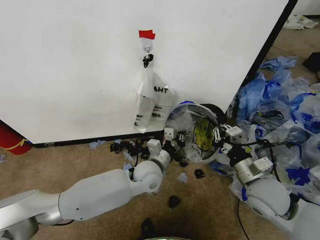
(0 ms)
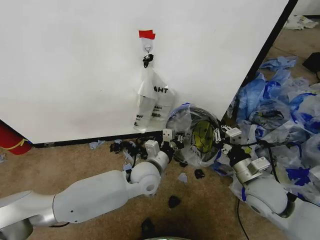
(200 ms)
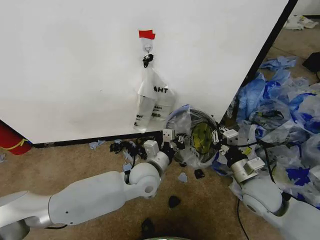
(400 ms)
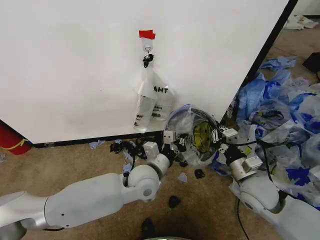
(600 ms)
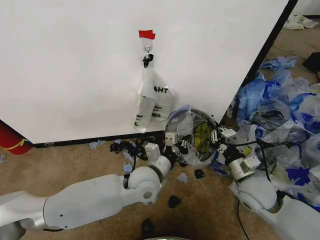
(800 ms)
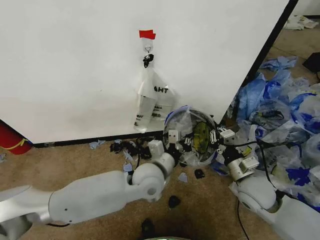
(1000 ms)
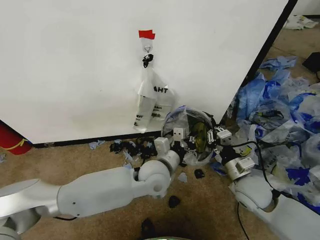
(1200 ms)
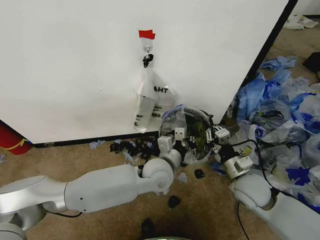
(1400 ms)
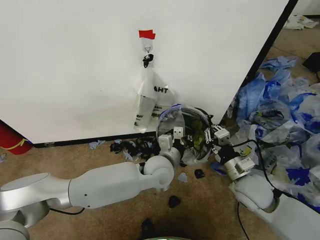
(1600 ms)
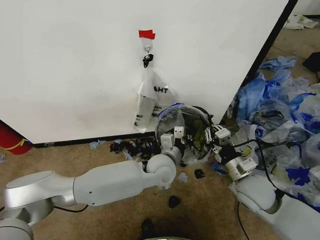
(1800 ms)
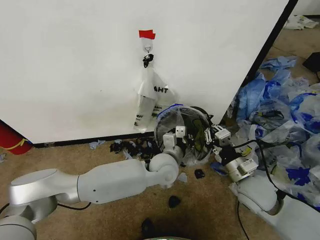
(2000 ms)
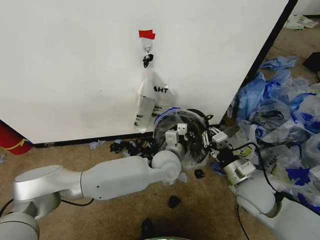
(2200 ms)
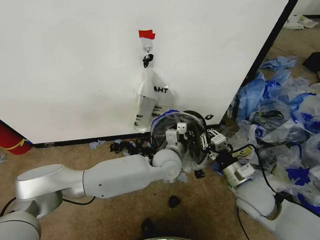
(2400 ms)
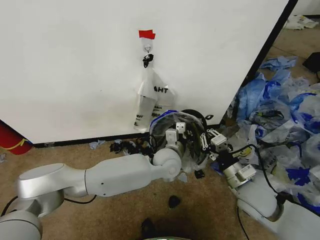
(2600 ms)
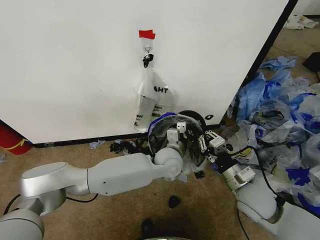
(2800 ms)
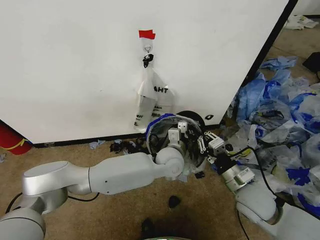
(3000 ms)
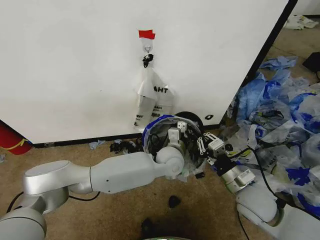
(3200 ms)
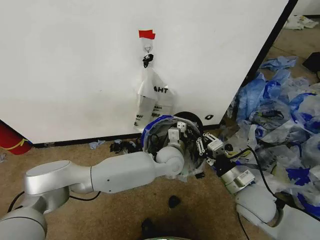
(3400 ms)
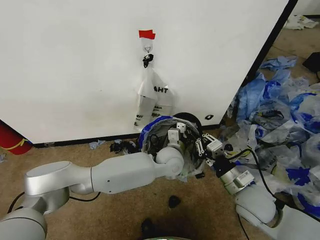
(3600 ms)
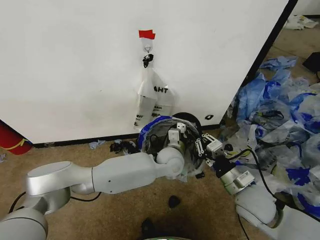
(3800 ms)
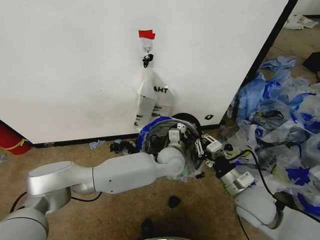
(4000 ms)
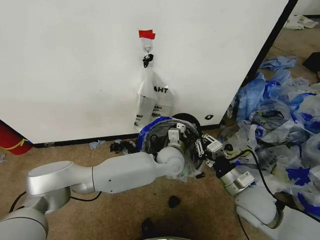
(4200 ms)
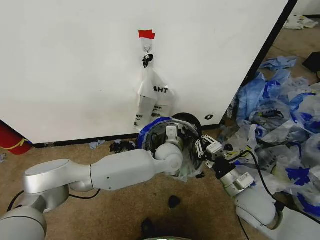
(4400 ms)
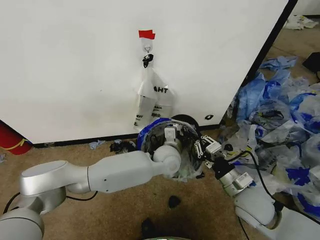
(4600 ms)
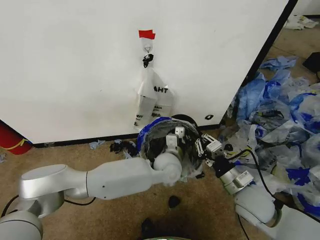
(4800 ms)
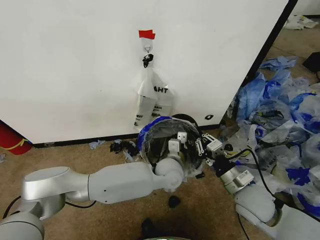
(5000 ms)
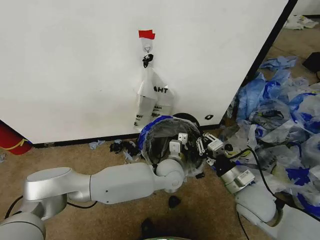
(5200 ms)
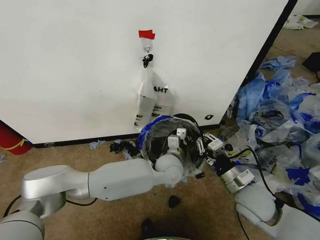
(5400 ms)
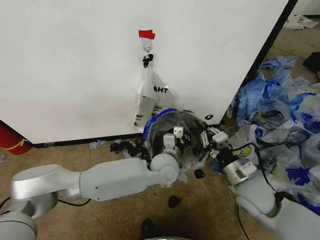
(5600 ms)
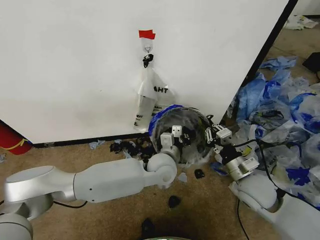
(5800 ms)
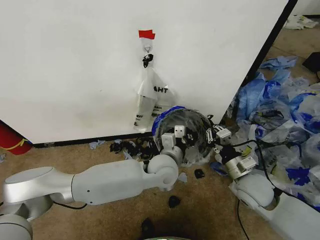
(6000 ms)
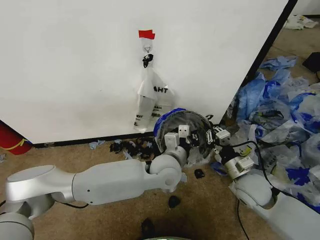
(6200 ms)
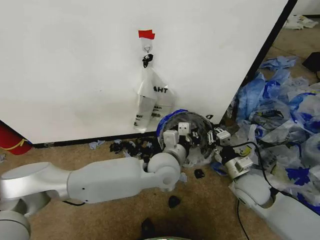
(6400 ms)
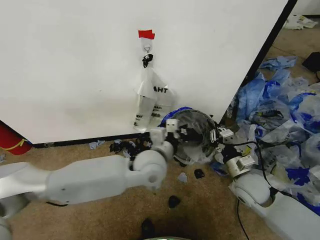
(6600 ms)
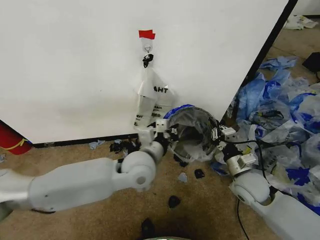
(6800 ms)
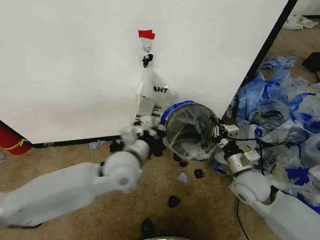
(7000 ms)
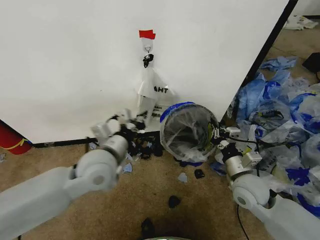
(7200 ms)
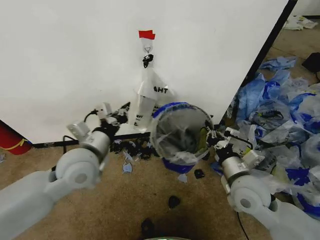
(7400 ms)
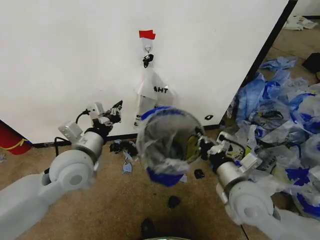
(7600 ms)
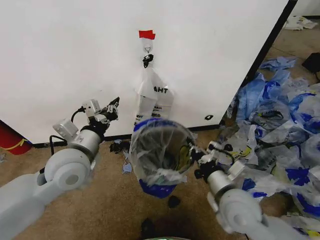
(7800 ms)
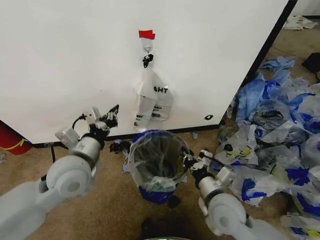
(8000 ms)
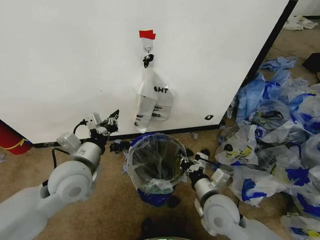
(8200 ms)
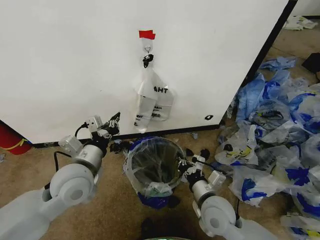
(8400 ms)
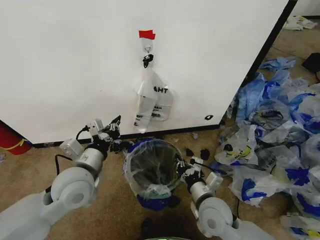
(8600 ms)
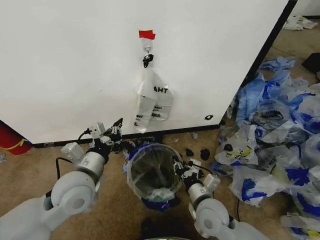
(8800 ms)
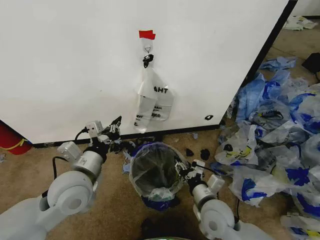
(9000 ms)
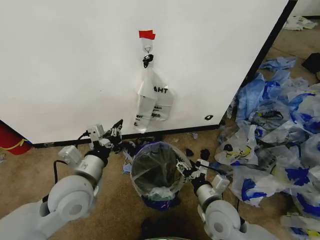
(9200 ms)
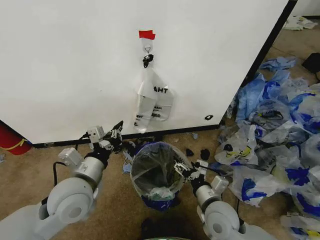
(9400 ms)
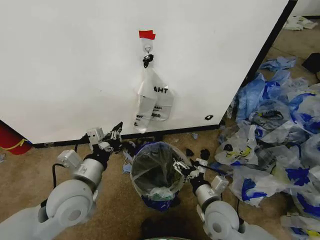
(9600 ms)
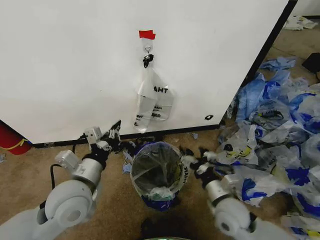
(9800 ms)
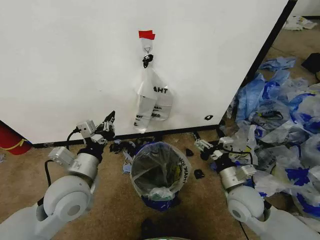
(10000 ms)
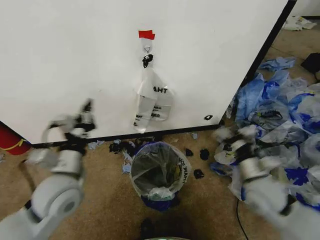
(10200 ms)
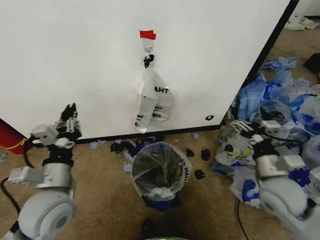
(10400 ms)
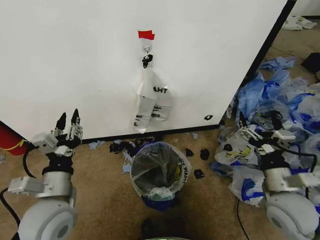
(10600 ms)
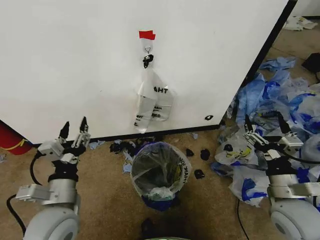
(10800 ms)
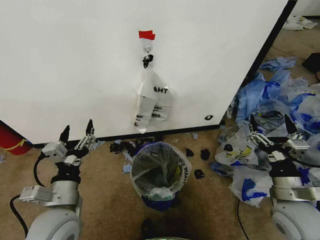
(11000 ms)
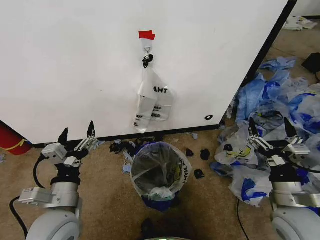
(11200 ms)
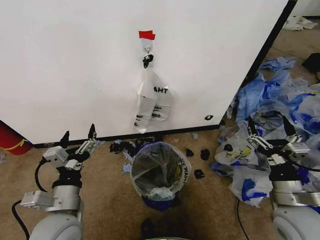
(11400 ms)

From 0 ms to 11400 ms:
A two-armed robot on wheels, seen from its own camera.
Task of the whole recording: Pick up the garbage bag from the wall and place it over the trash bin.
From 0 ms to 1400 ms: The left gripper moves roughly 5 cm. The right gripper moves roughly 5 cm.
From 1400 ms to 2800 ms: The left gripper moves forward, about 5 cm.
From 2800 ms to 5600 ms: There are only small adjustments of the grippers.
From 5600 ms to 7200 ms: The left gripper travels to the left and upward by approximately 20 cm.
From 7200 ms to 8600 ms: The right gripper is displaced to the left and backward by approximately 10 cm, while the left gripper goes about 5 cm to the left.
From 8600 ms to 10000 ms: The right gripper goes roughly 10 cm to the right, and opens up.
From 10000 ms to 11400 ms: The right gripper shifts approximately 10 cm to the right, backward and upward; the left gripper is displaced backward by approximately 5 cm, and opens up.

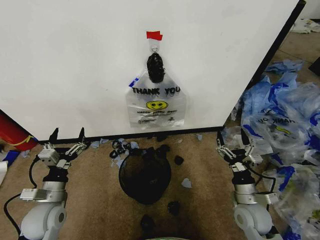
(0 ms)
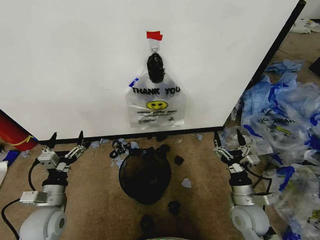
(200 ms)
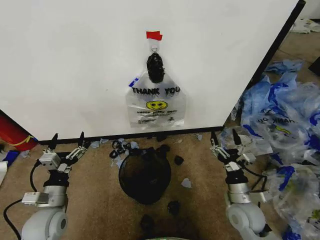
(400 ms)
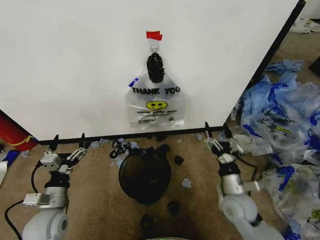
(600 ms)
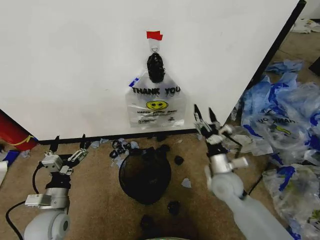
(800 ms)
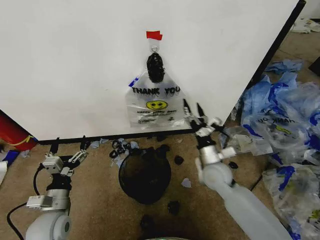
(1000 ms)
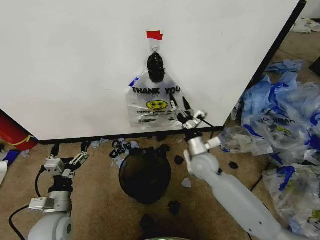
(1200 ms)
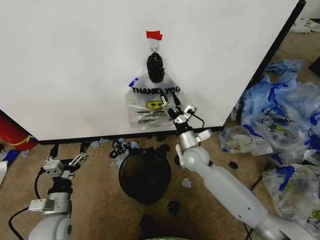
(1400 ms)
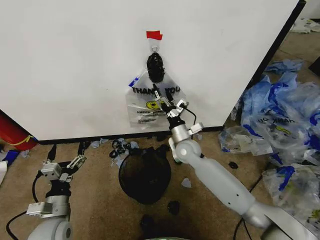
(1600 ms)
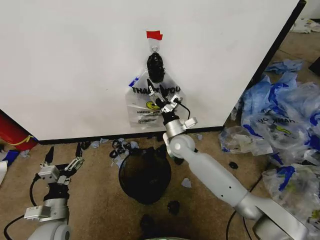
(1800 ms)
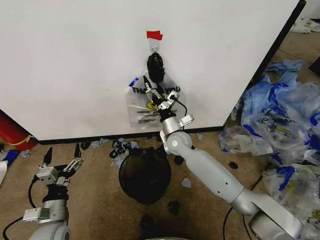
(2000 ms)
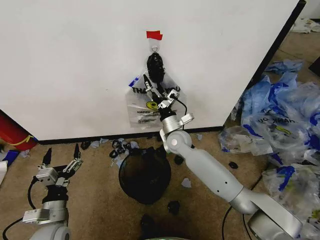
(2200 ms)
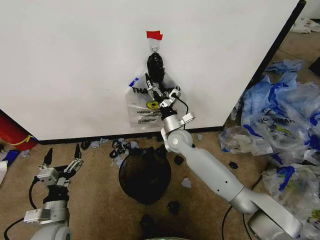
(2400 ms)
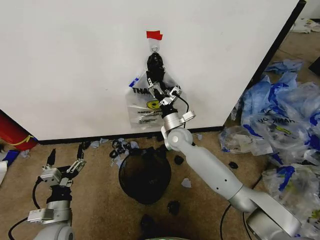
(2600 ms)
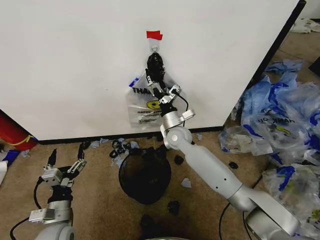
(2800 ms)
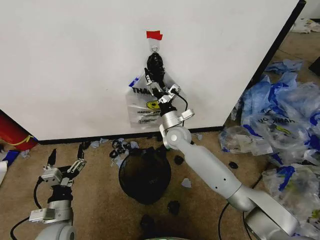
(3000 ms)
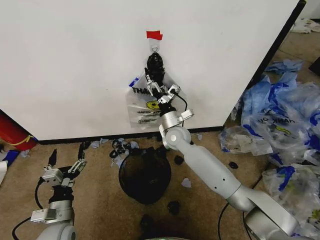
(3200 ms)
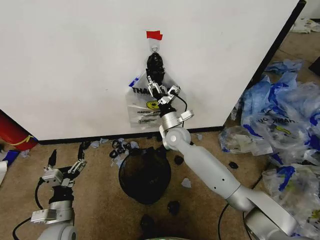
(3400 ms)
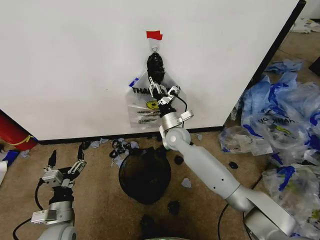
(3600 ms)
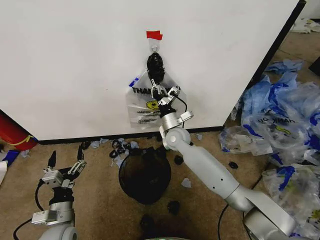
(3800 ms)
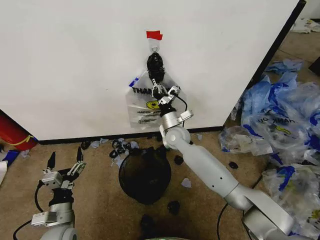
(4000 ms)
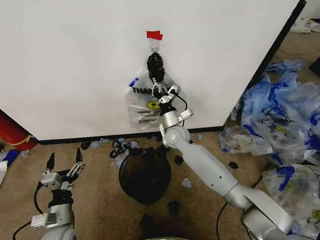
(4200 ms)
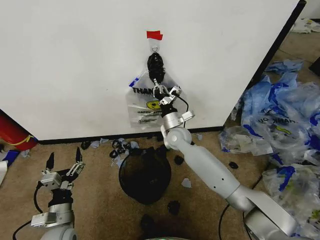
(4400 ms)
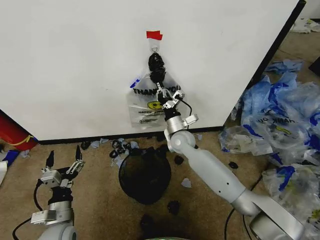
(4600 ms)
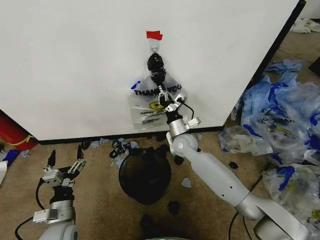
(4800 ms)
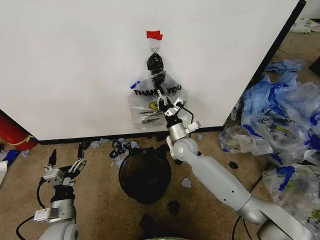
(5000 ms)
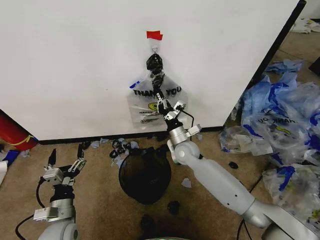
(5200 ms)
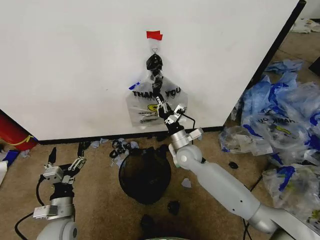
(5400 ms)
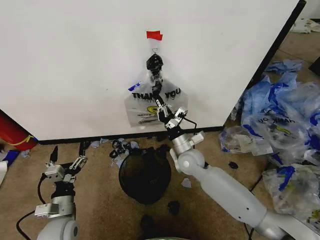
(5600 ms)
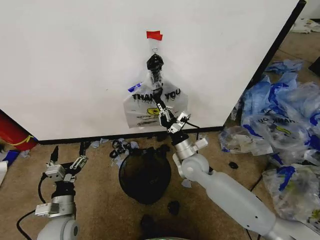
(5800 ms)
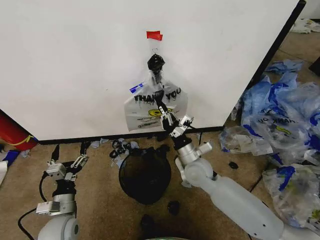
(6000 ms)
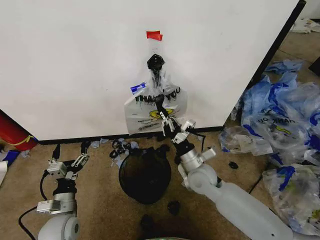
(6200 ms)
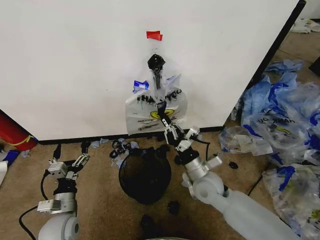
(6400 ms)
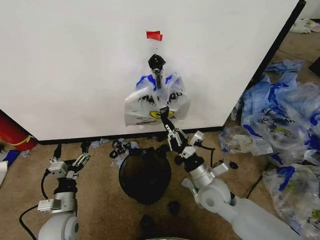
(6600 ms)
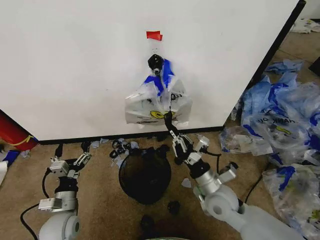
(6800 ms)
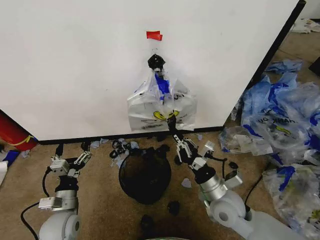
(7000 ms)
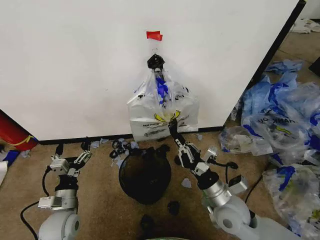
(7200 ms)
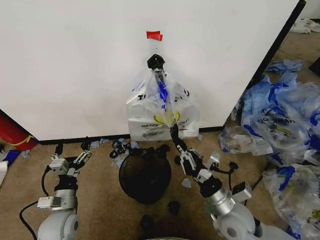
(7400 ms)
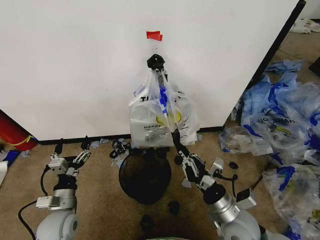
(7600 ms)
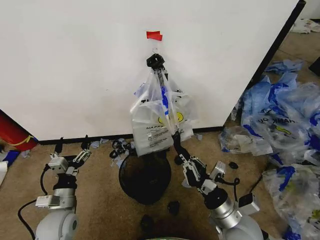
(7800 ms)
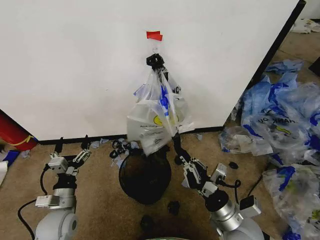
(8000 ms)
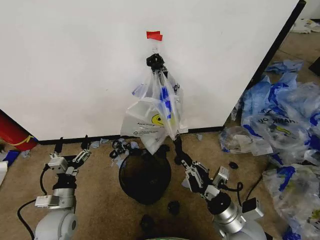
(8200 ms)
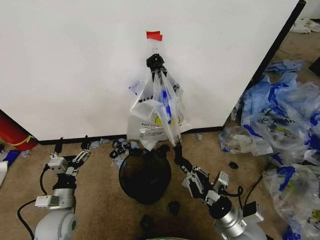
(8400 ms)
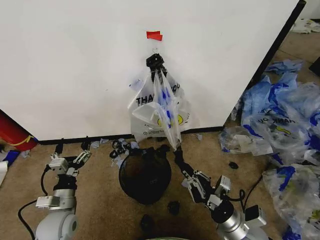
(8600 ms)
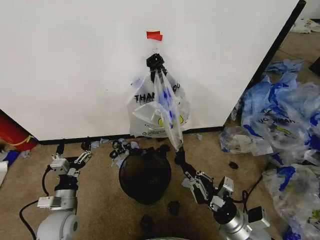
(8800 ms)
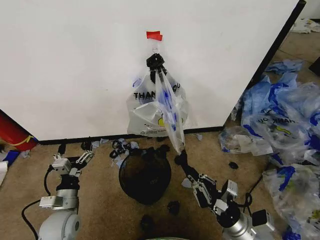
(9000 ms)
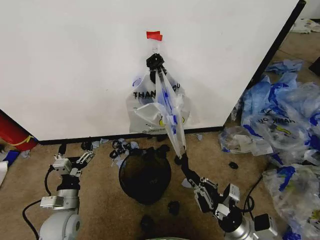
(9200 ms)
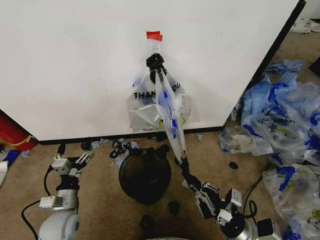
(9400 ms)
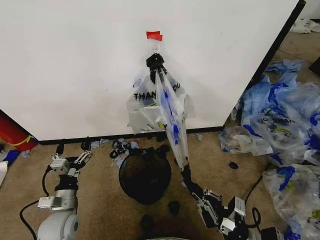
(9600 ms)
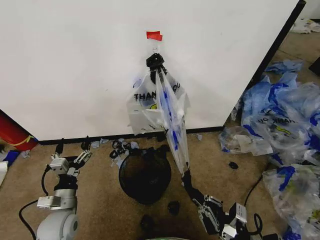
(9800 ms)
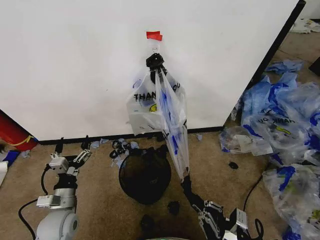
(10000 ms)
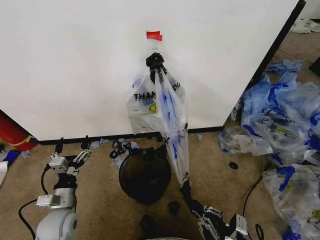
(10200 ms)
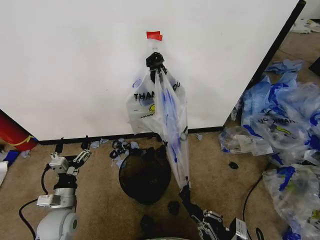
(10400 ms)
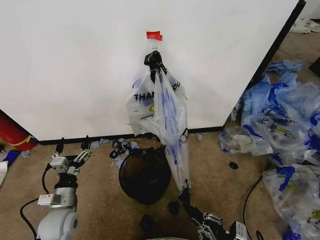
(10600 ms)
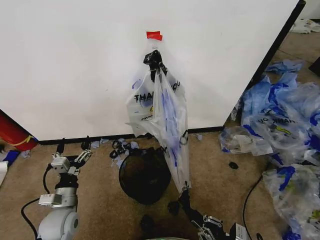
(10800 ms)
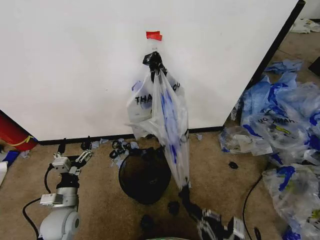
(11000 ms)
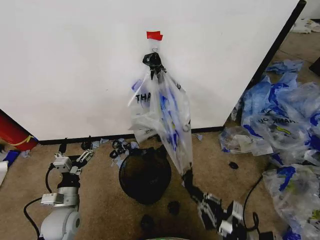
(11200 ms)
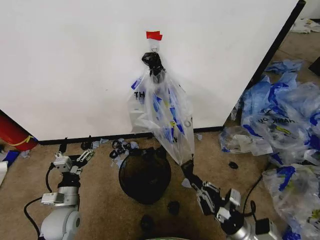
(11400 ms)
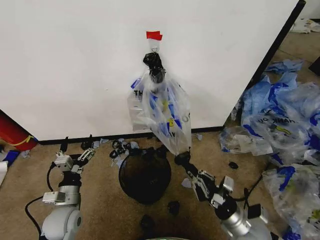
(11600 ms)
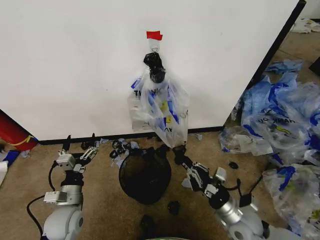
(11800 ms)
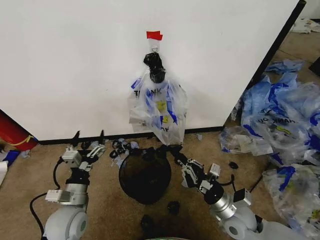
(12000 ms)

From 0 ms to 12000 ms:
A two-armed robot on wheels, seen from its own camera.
Task of the whole recording: Pick up the garbage bag from the wall and place it over the trash bin.
From 1600 ms to 3000 ms: The right gripper changes place by about 5 cm.
From 3000 ms to 4400 ms: The right gripper closes.
From 4400 ms to 6000 ms: The right gripper goes some 15 cm backward and to the right.
From 6000 ms to 7600 ms: The right gripper heads backward and to the right, covering approximately 20 cm.
From 7600 ms to 9000 ms: The right gripper changes place by approximately 5 cm.
From 9000 ms to 10400 ms: The right gripper is displaced backward by about 10 cm.
From 10400 ms to 12000 ms: The left gripper ends up some 5 cm from where it was. Meanwhile the right gripper goes approximately 15 cm forward.
